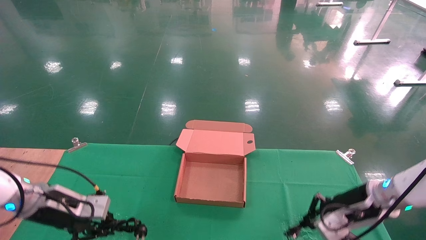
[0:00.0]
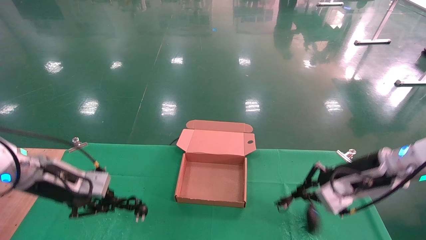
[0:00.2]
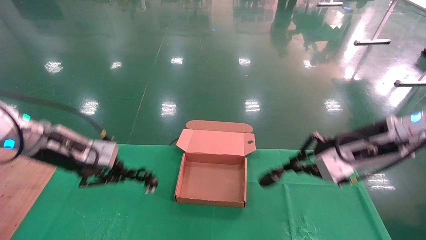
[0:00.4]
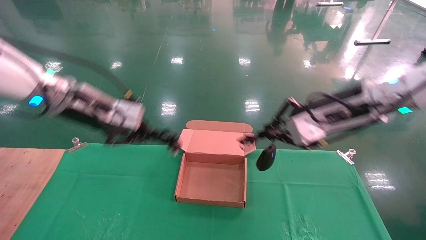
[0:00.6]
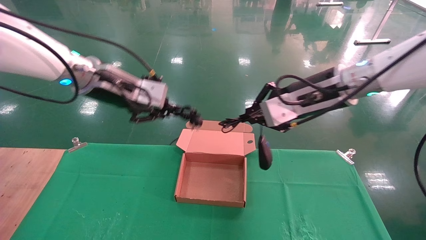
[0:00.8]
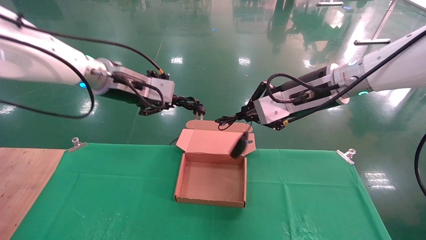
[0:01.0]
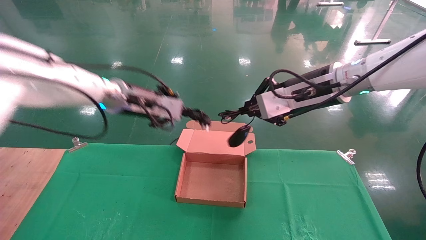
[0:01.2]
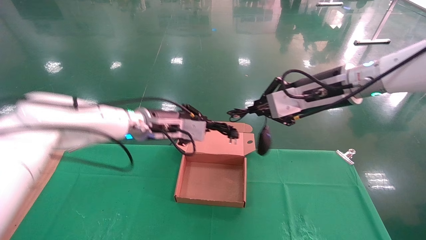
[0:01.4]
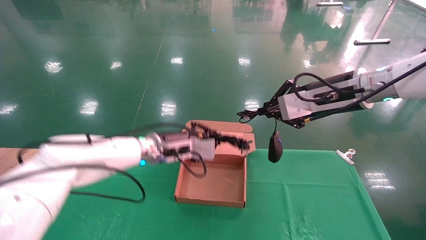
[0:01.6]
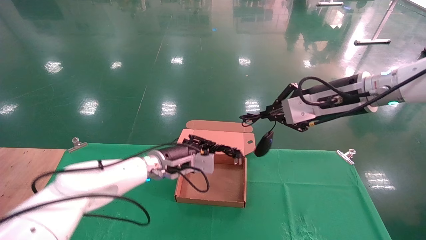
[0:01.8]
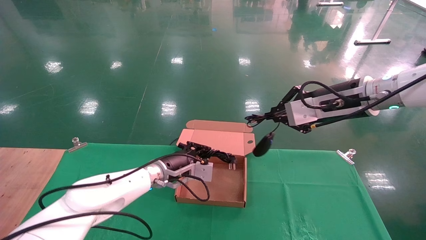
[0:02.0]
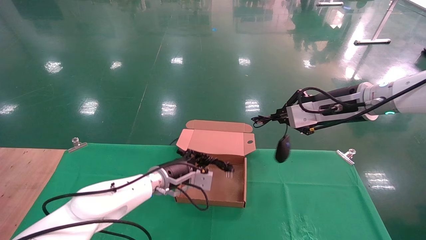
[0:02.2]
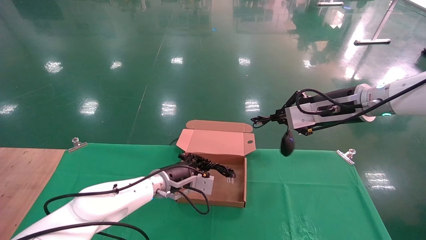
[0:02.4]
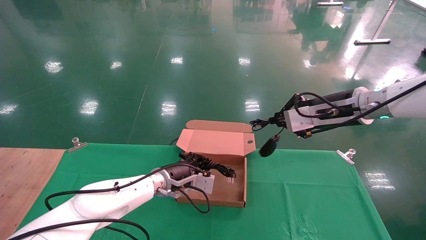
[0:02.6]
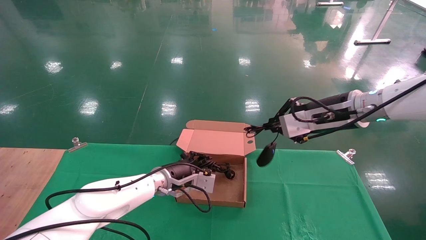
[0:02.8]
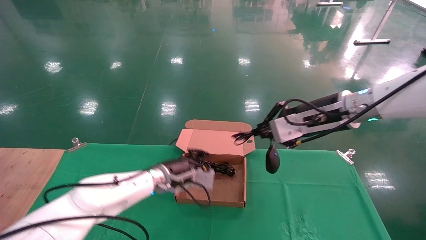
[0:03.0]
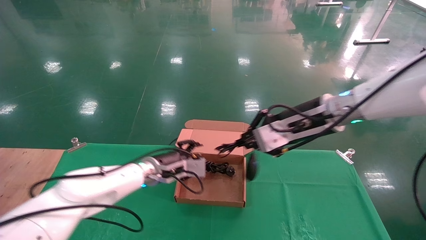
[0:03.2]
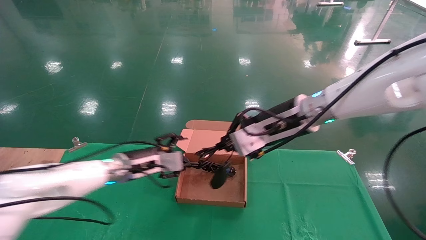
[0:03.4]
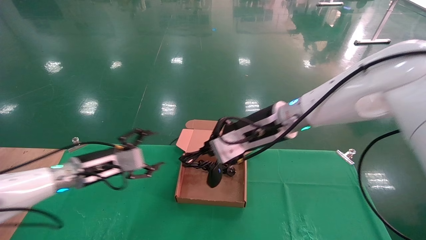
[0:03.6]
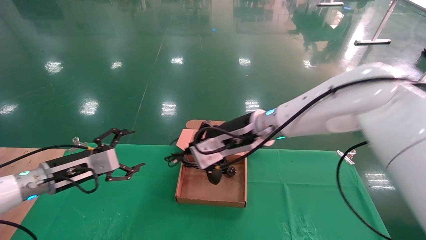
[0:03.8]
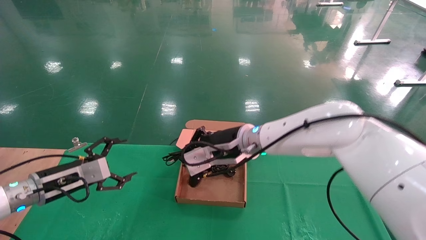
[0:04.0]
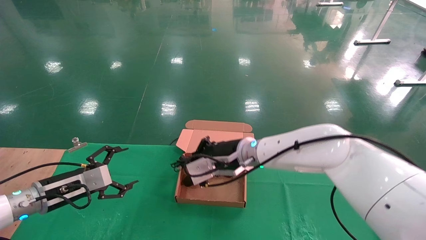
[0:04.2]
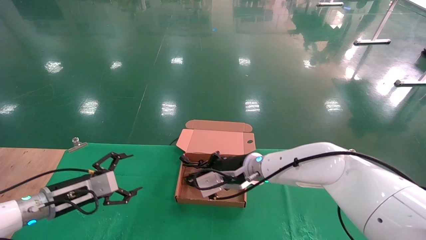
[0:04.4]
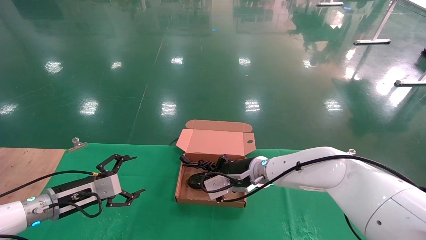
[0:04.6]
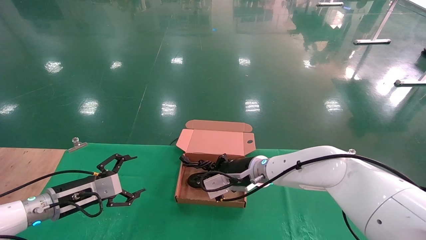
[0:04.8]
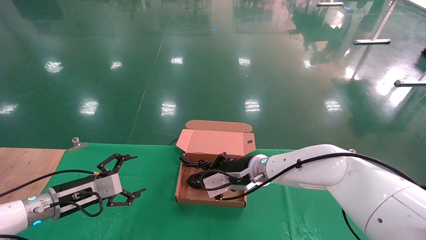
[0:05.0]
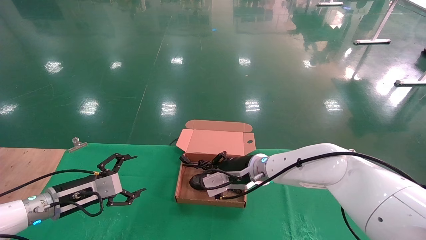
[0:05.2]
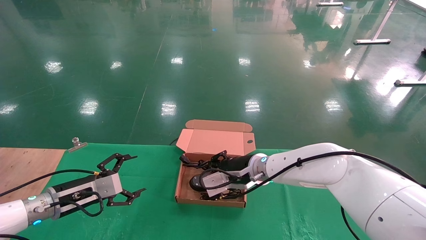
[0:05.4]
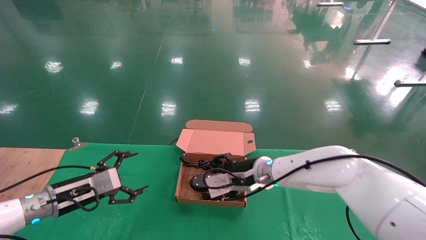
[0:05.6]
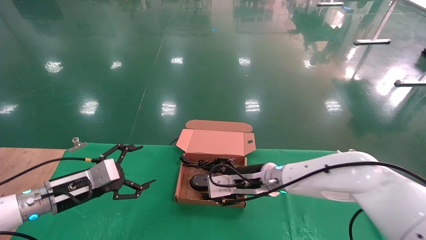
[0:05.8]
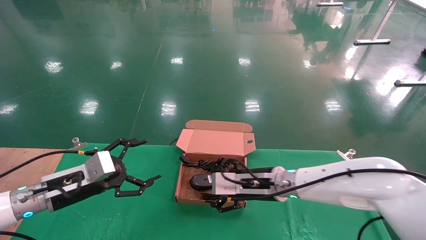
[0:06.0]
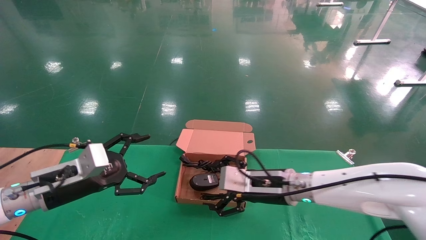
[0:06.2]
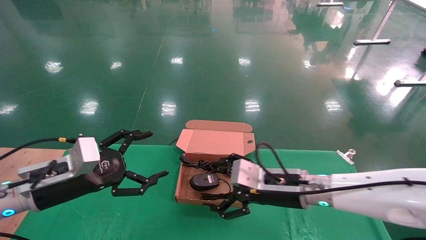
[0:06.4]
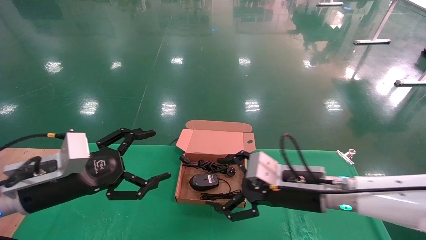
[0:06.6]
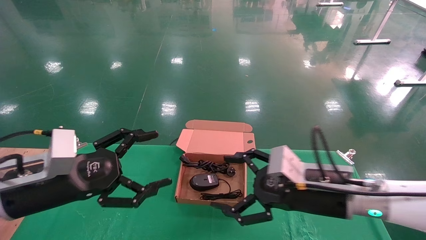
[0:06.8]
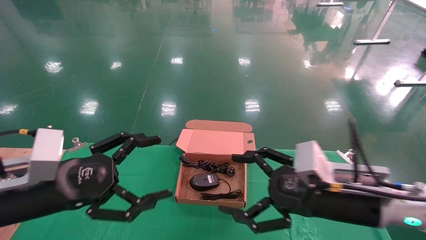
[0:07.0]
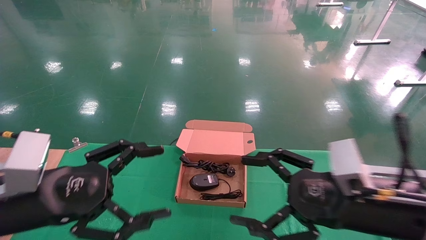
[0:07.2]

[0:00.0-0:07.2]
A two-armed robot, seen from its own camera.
Step, 0:00.8 to 0:05.6: Place the mouse and power cord into the box.
0:00.0 to 0:01.4: The right gripper shifts some 25 cm upward and to the left; the left gripper heads to the right, upward and forward, covering approximately 25 cm.
0:01.4 to 0:02.8: The left gripper moves downward, roughly 15 cm.
0:02.8 to 0:04.4: The left gripper shifts about 25 cm to the left, and opens up, while the right gripper shifts some 25 cm to the left and downward.
0:04.4 to 0:05.8: The right gripper opens up.
0:05.8 to 0:07.2: The left gripper shifts about 20 cm backward and upward, while the right gripper travels backward and to the right by some 20 cm, and opens up.

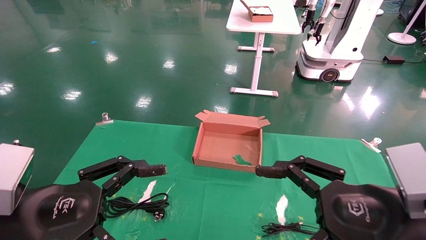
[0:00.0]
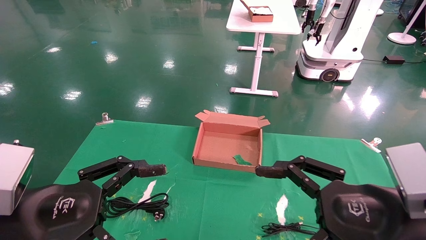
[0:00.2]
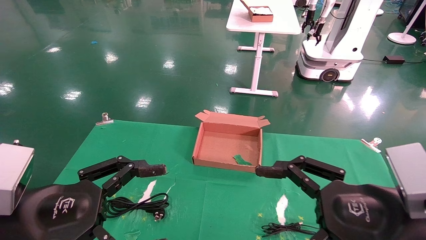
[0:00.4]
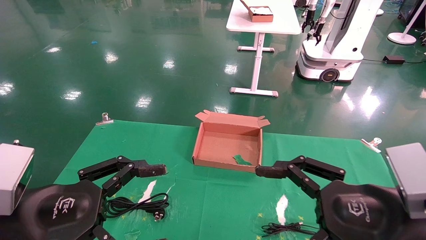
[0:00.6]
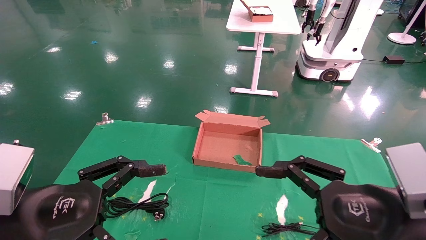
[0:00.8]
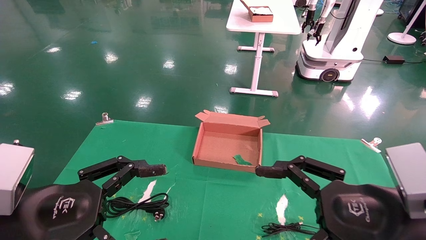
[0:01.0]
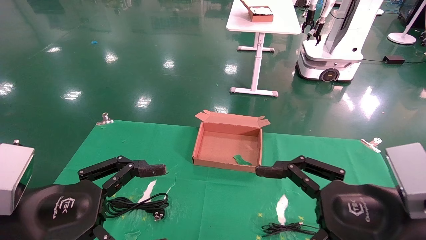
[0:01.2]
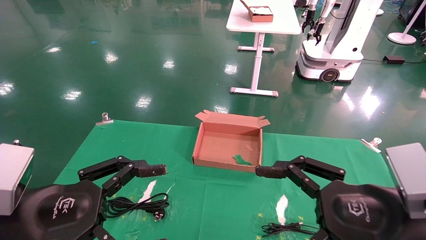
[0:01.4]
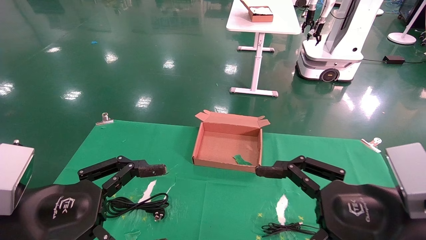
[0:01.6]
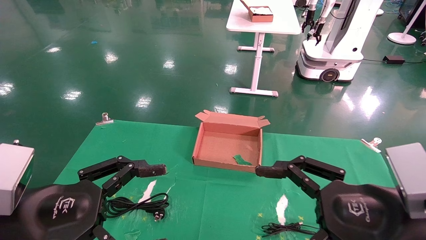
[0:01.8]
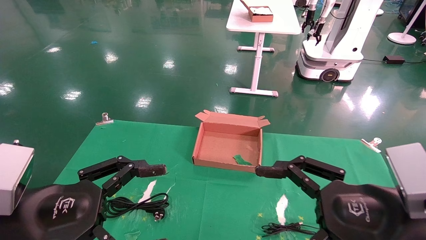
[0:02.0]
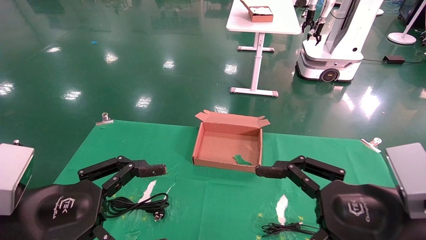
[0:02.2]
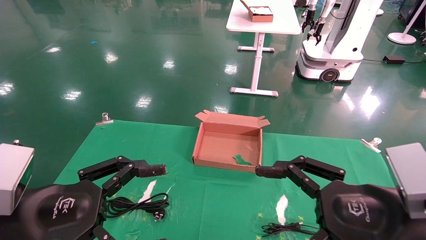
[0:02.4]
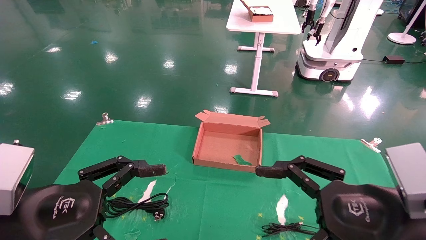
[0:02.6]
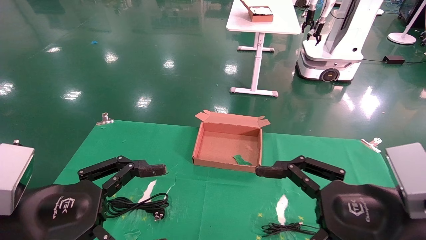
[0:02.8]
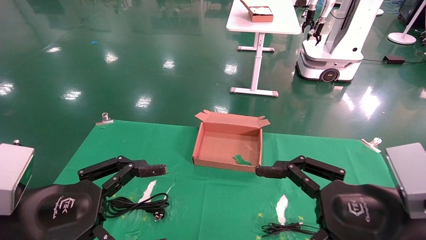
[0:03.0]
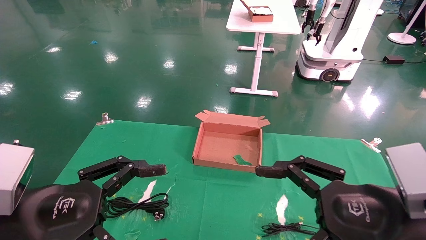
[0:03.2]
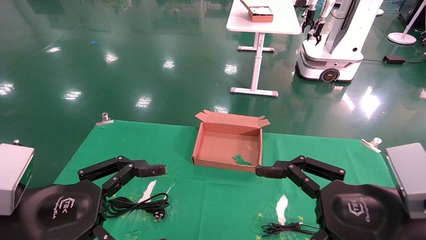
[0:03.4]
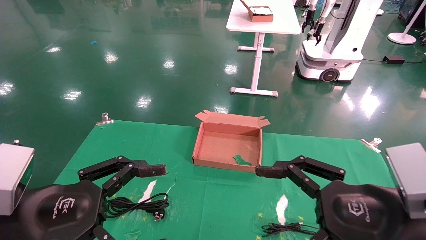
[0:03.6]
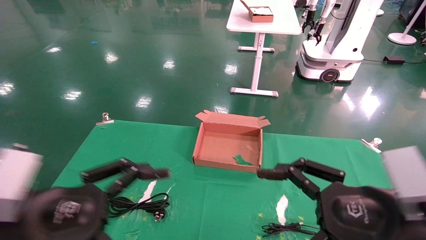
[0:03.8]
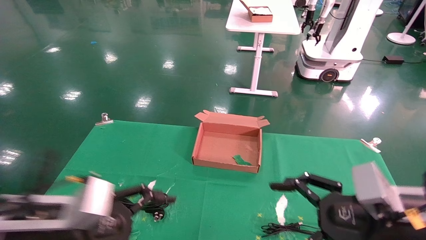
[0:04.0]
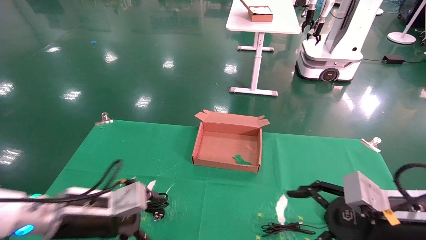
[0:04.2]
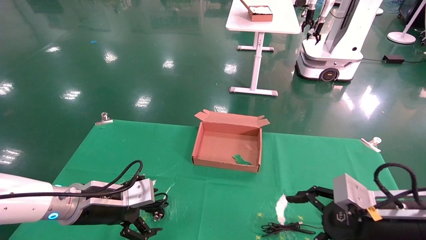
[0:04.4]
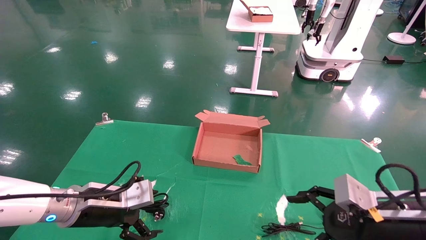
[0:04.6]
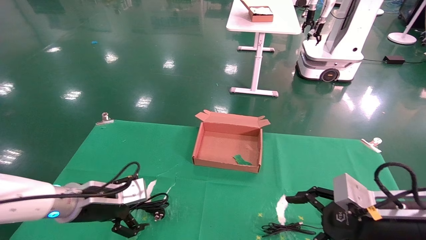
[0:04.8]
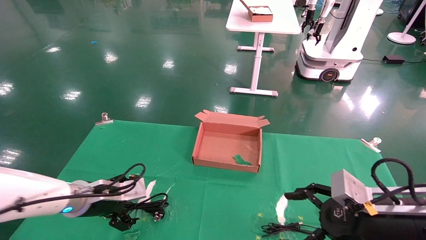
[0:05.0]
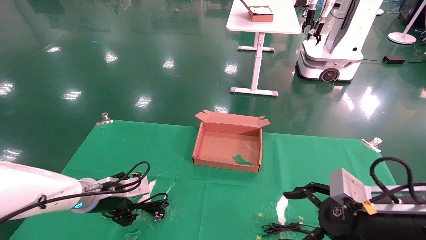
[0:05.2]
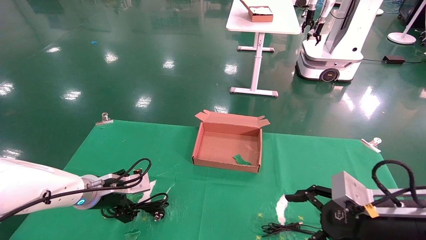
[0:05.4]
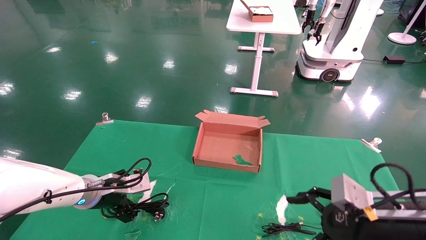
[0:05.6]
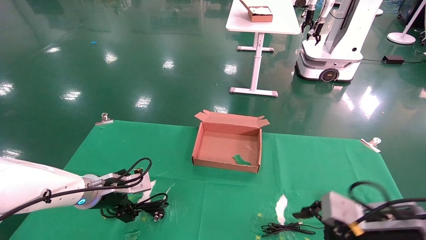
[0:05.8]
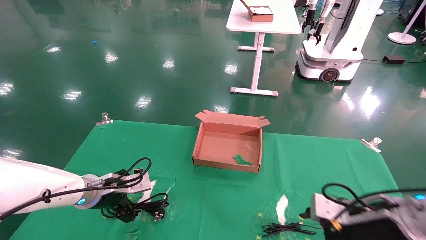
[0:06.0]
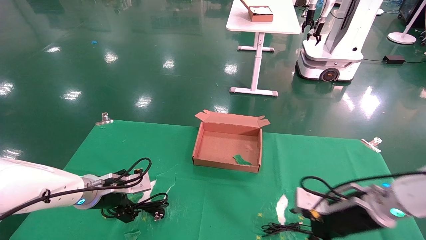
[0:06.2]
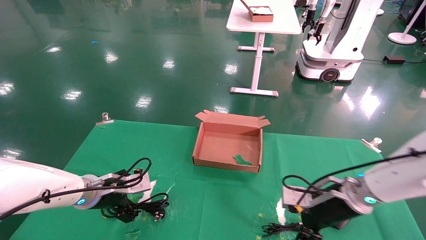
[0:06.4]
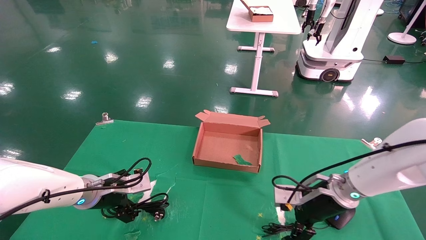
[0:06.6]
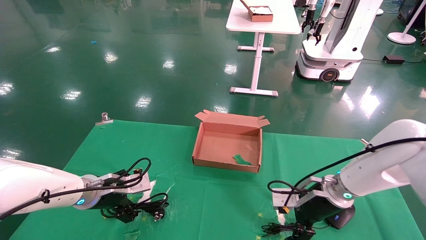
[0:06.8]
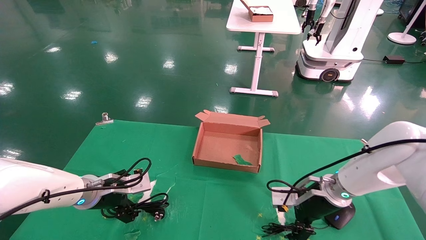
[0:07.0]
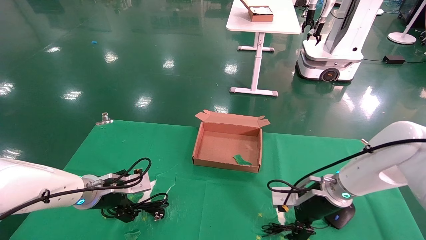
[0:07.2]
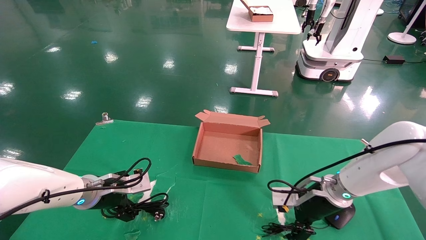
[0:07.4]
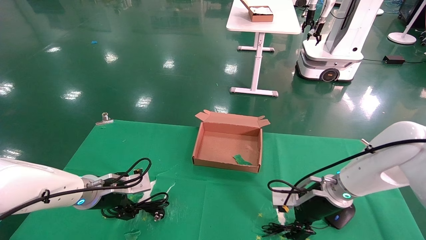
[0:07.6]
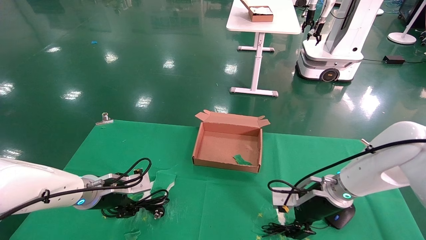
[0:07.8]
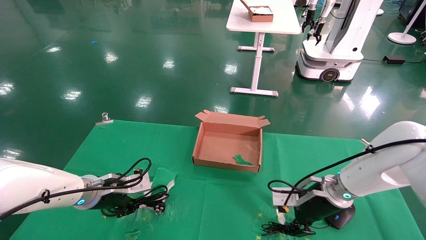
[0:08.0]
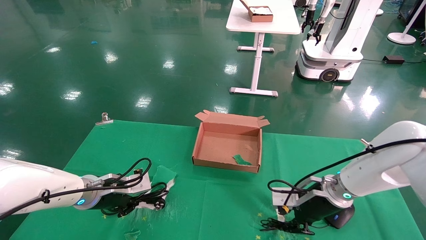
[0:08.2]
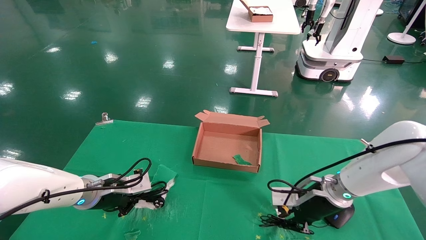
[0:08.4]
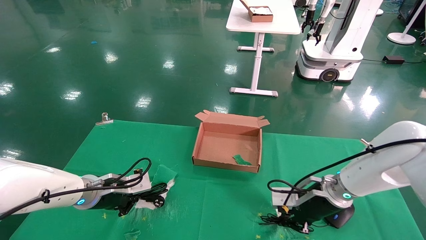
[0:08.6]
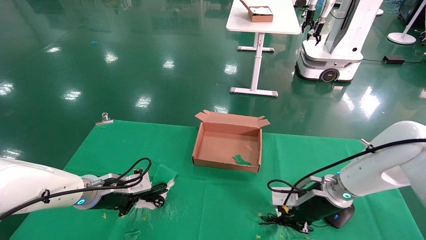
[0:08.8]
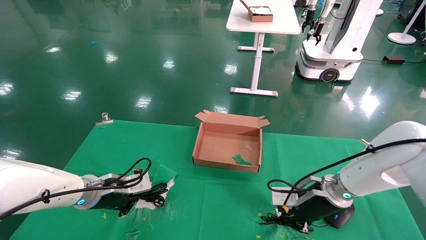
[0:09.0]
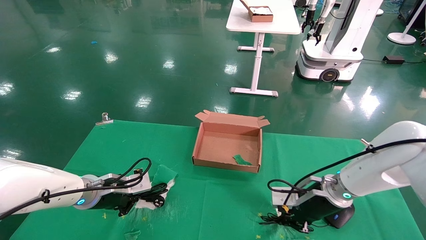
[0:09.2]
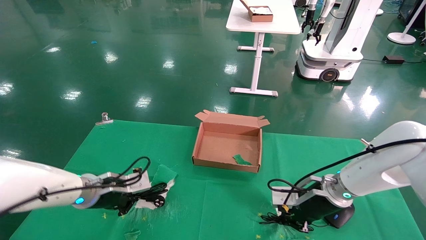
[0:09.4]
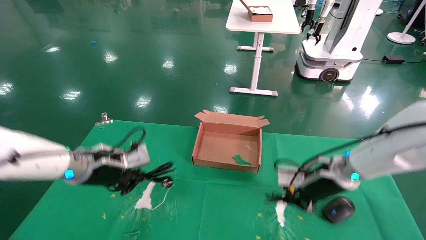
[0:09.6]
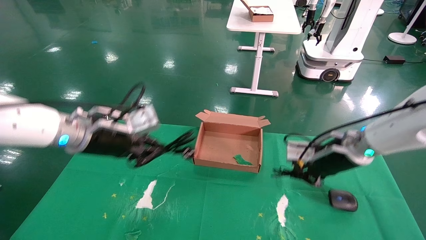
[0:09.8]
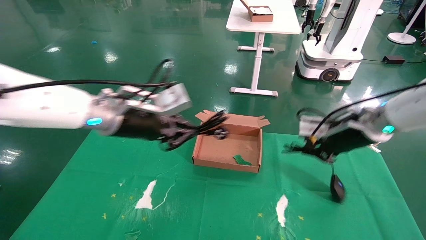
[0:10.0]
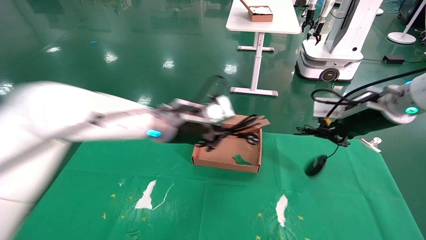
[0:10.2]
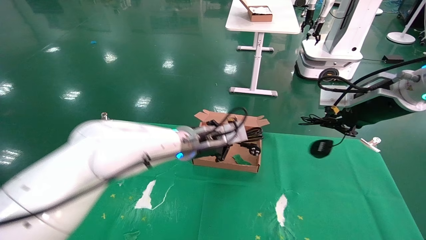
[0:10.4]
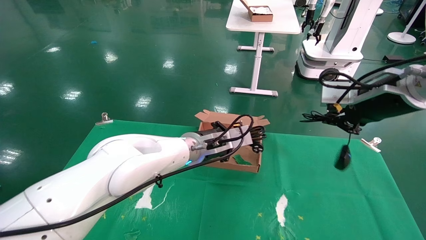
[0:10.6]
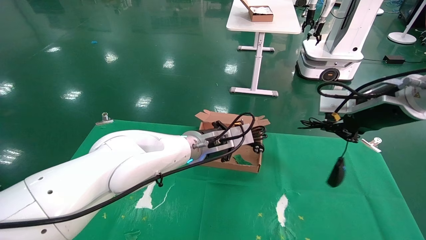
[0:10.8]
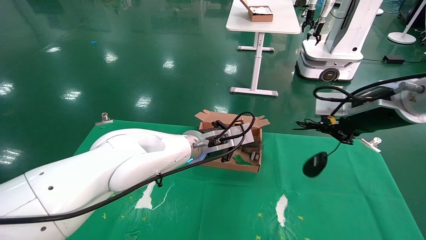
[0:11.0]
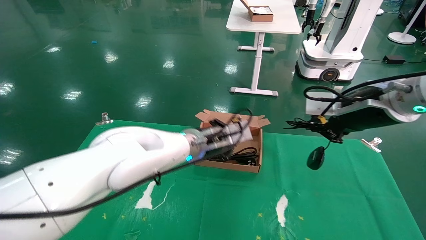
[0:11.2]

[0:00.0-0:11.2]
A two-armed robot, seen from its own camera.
Step, 0:04.6 to 0:10.0: Grab and lift both the mouse and power cord from the accessory packaging area at the same time.
0:00.0 to 0:03.2: Neither gripper changes place.
0:03.2 to 0:04.8: The left gripper goes some 20 cm forward and downward. Meanwhile the right gripper goes about 10 cm forward and downward.
0:04.8 to 0:06.4: The right gripper is displaced forward by approximately 10 cm.
0:06.4 to 0:08.0: The right gripper closes. Meanwhile the left gripper closes up.
0:08.0 to 0:09.6: The left gripper moves upward, about 10 cm, and closes, while the right gripper heads upward, covering roughly 5 cm, and closes.
0:09.6 to 0:11.2: The left gripper goes about 20 cm to the right, while the right gripper goes about 15 cm upward and backward.
